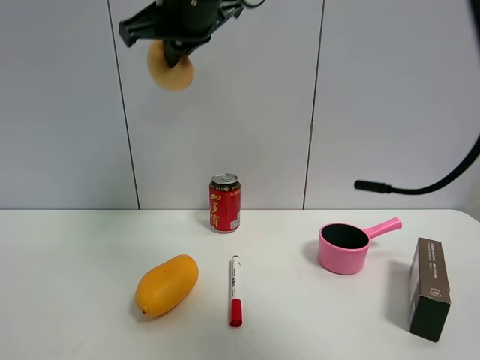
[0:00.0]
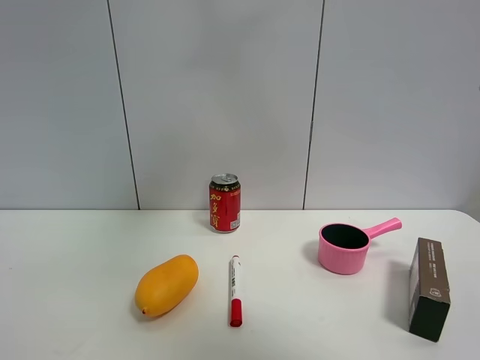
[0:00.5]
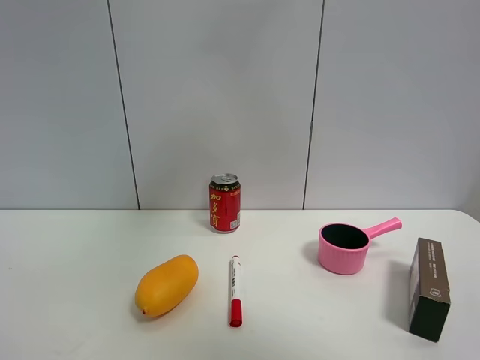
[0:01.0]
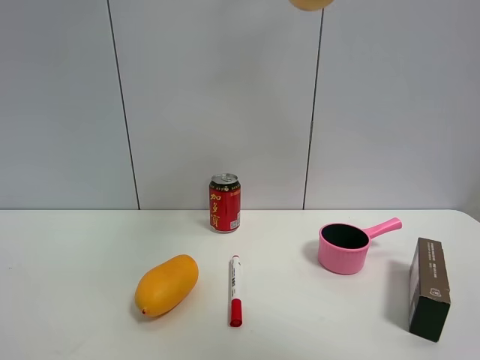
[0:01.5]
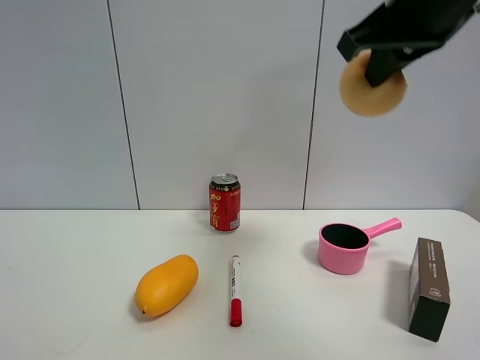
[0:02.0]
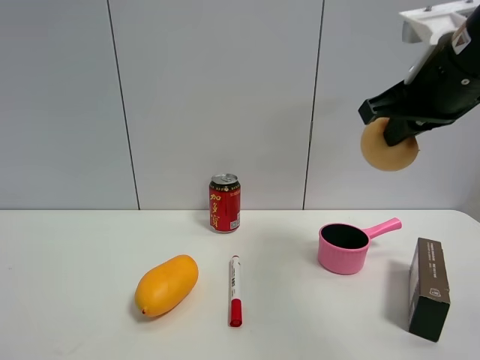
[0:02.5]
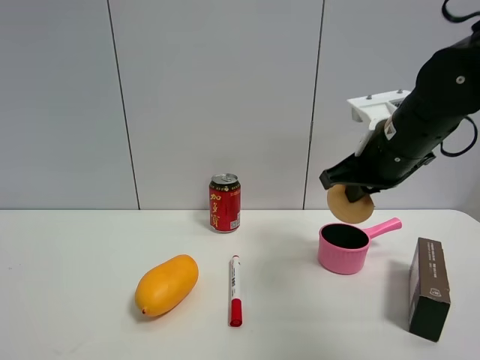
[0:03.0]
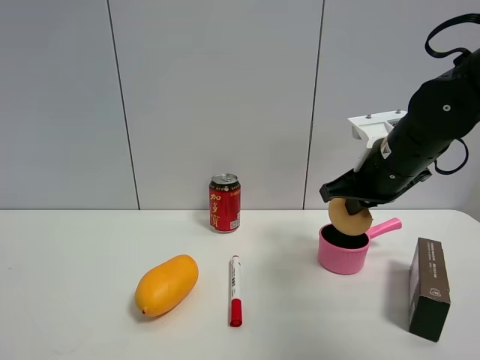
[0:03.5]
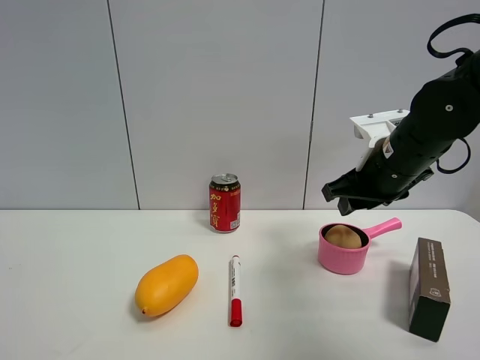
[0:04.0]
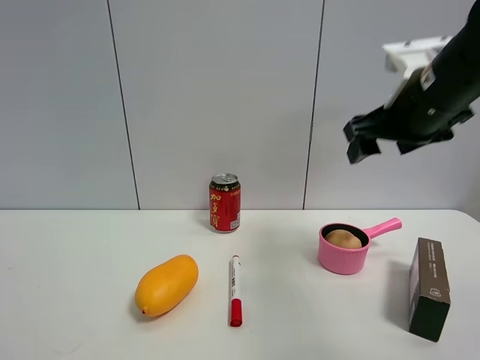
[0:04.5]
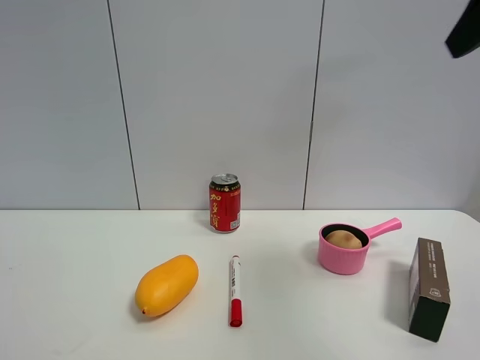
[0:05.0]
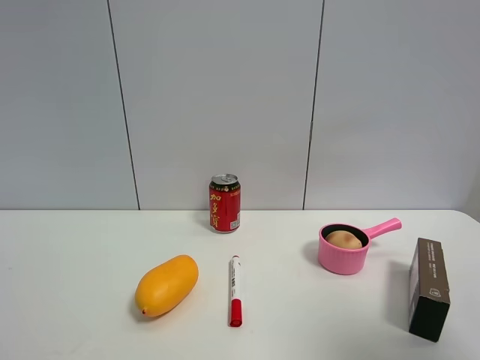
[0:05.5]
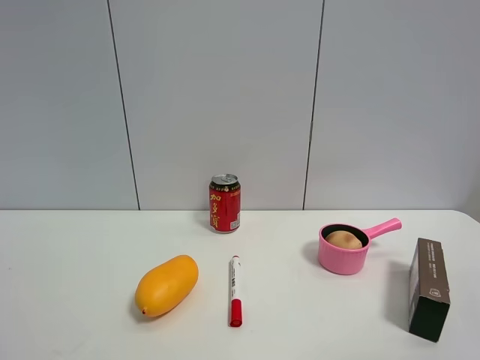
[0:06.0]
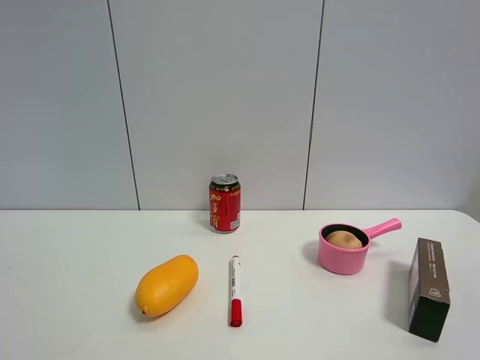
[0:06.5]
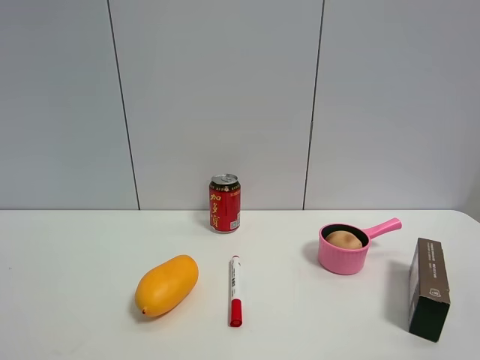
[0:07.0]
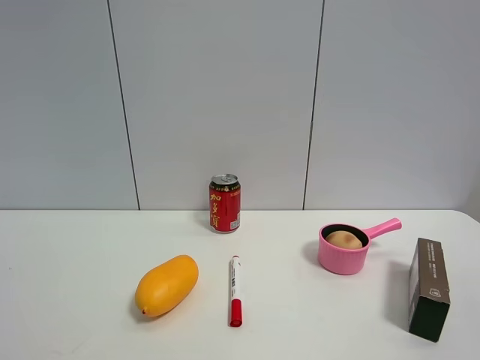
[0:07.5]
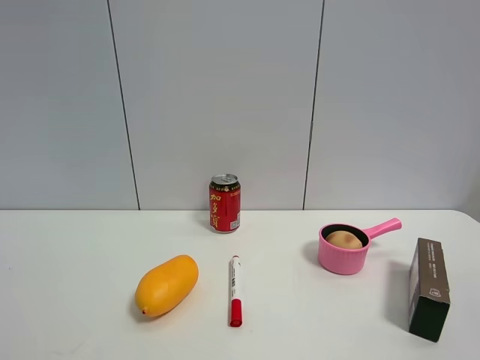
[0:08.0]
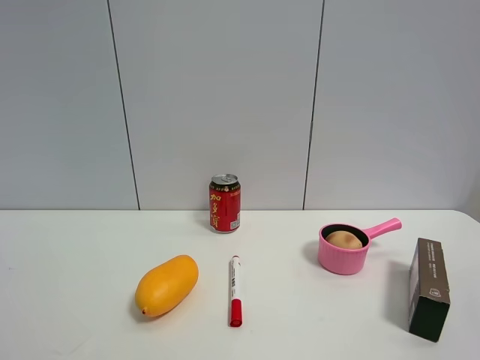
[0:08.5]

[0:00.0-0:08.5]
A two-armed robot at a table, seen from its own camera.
Task of the whole recording: the gripper move the object.
Step, 0:00.0 to 0:04.0: Place the egg tart into the pink pot with the right gripper.
0:00.0 to 0:02.0: The right gripper is displaced to the right and backward by about 25 cm.
0:02.0 to 0:04.0: The right gripper moves downward and forward, roughly 20 cm, and opens its fingers.
0:04.0 to 0:06.5: The right gripper is displaced backward by approximately 35 cm, and opens up.

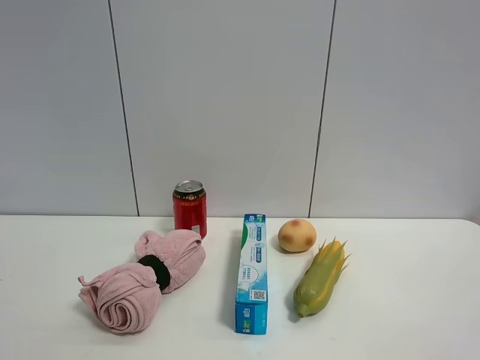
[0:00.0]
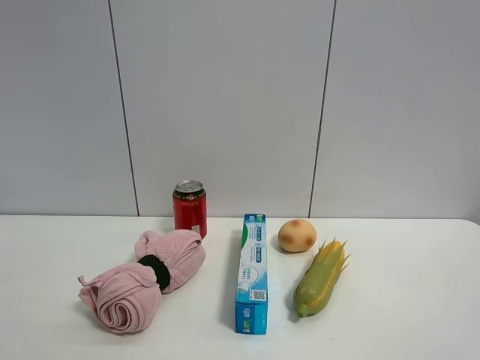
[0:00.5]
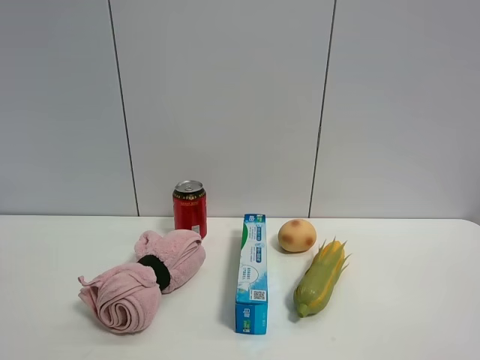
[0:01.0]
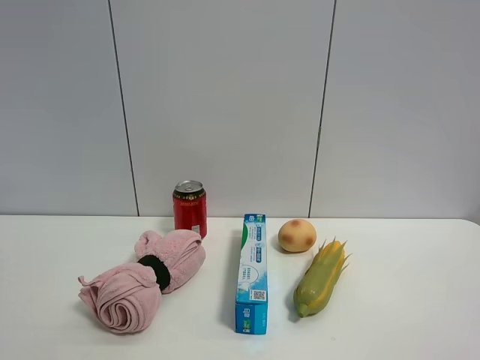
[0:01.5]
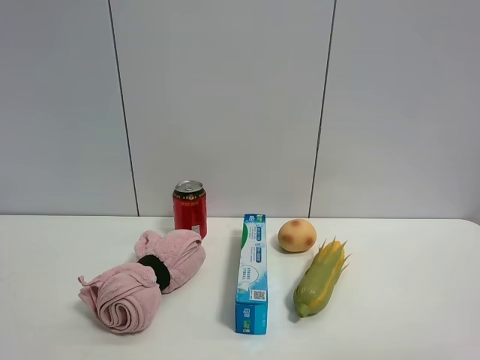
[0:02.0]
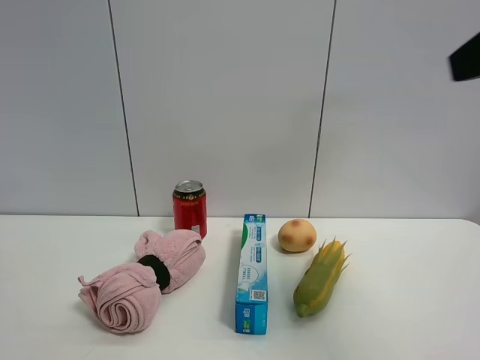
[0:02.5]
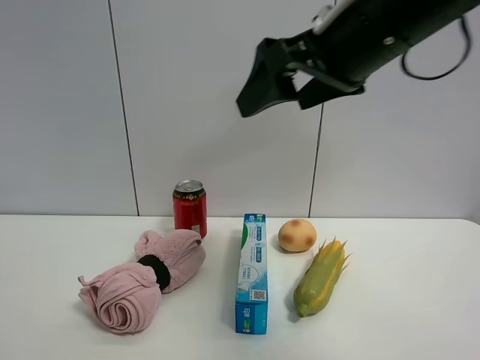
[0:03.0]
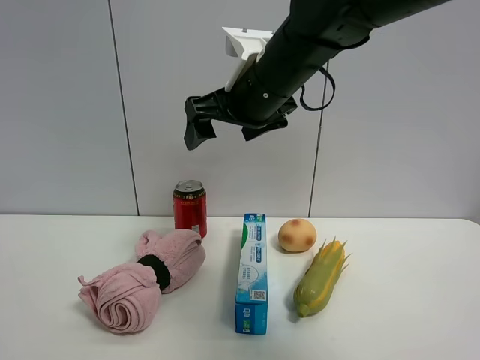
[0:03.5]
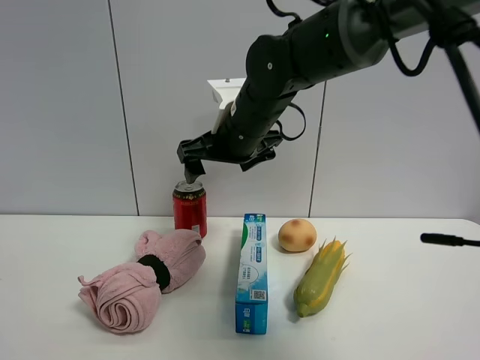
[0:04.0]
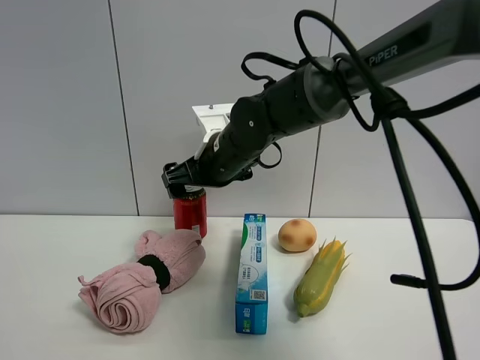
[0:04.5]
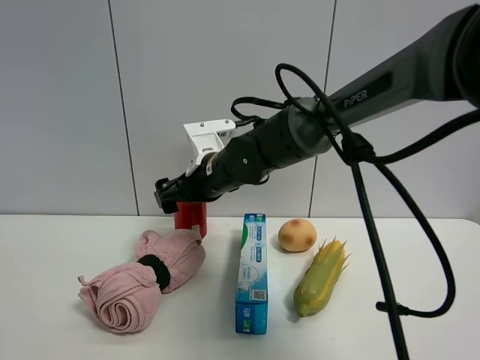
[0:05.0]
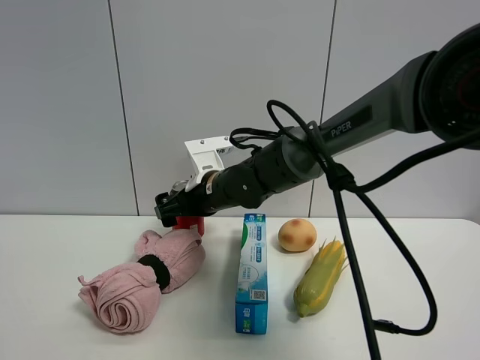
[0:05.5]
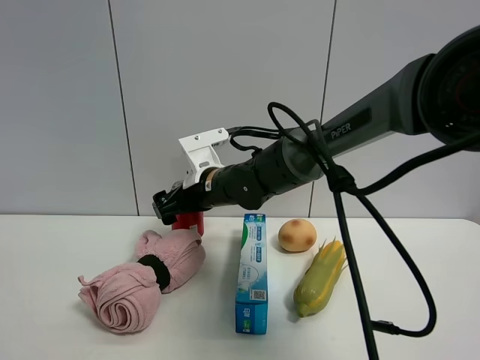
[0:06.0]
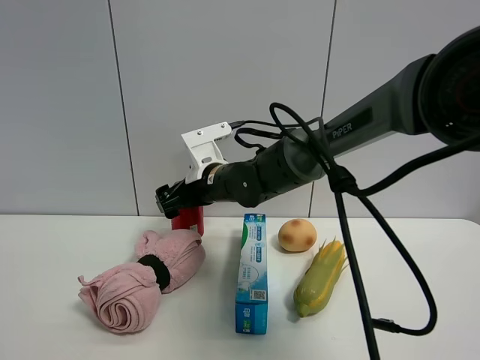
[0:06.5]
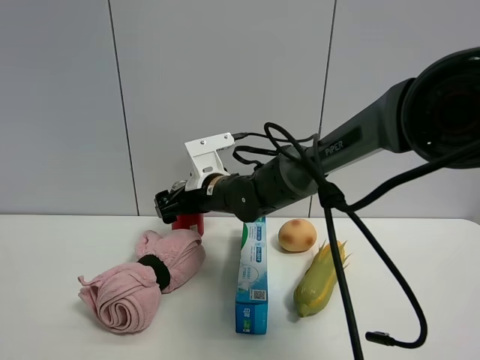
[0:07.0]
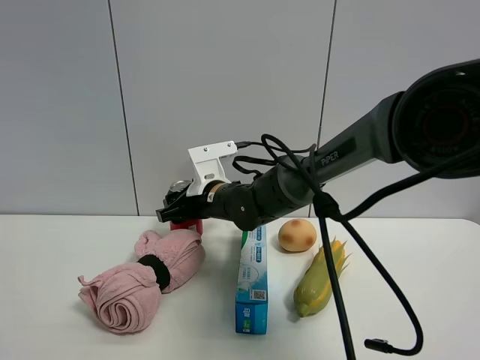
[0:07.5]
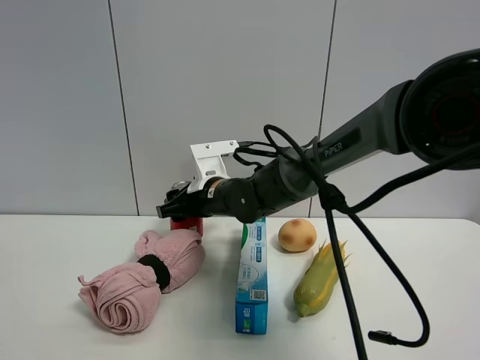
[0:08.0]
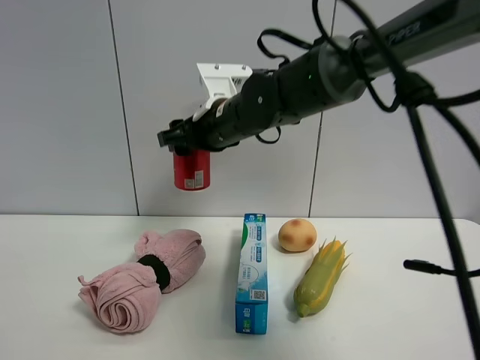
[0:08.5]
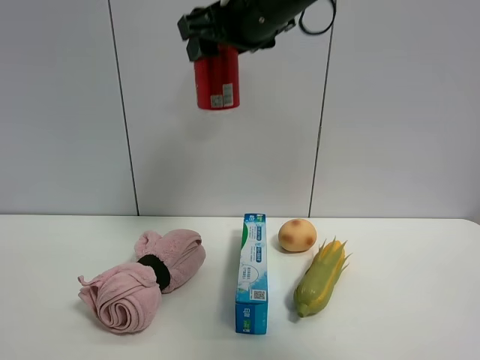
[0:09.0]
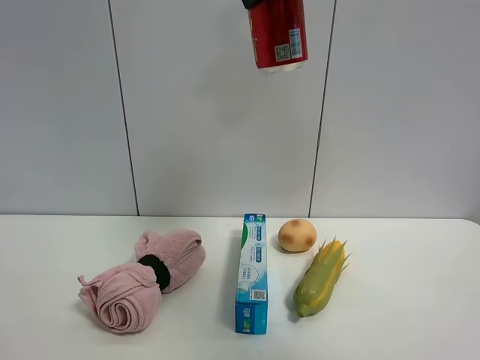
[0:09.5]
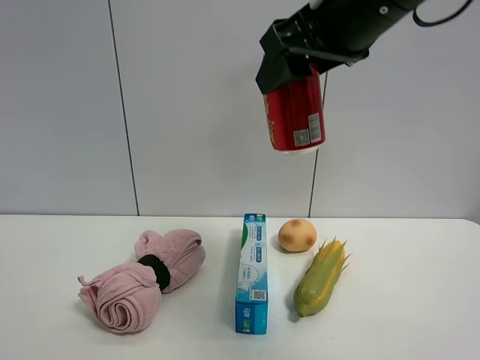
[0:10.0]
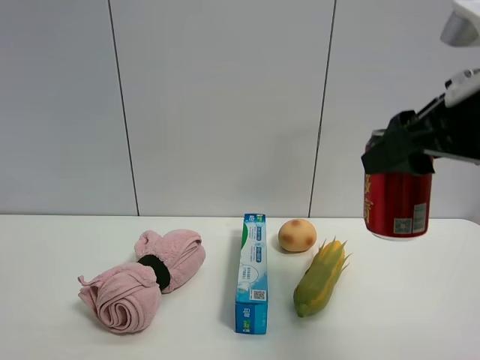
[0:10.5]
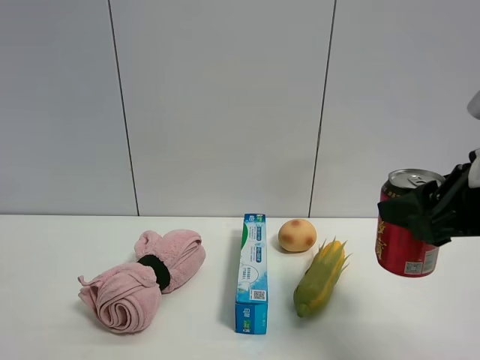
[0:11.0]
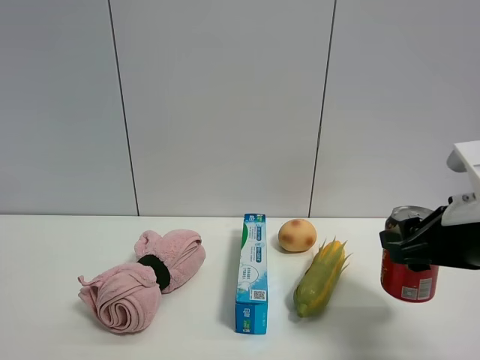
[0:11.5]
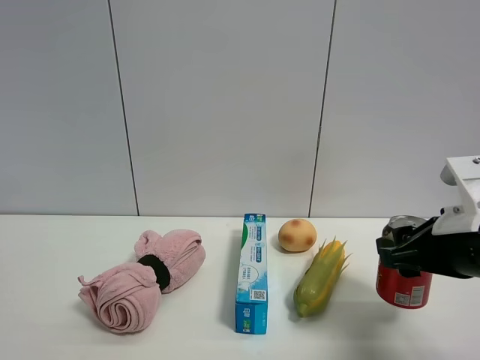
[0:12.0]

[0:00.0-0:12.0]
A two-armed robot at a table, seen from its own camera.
Task of the whole recording: the gripper move the object.
Step, 0:00.0 to 0:07.5: Grasp the Jia Duo Bao with the right gripper.
0:02.0 to 0:04.0: The right gripper goes some 50 cm forward and to the left.
0:04.0 to 0:06.0: The right gripper heads downward, covering about 10 cm.
0:06.0 to 0:08.0: The right gripper closes up.
0:08.0 to 0:10.0: The right gripper shifts roughly 35 cm upward, backward and to the right.
0:10.0 to 0:12.0: The right gripper shifts approximately 25 cm downward and to the right.

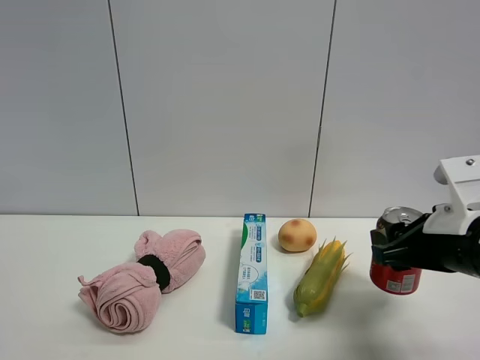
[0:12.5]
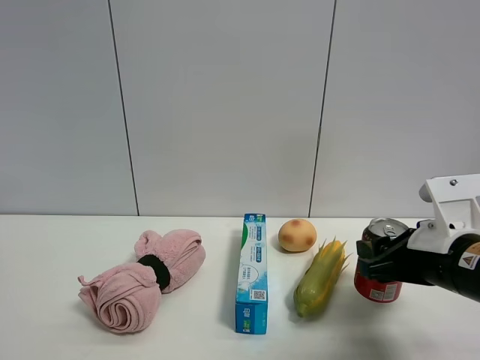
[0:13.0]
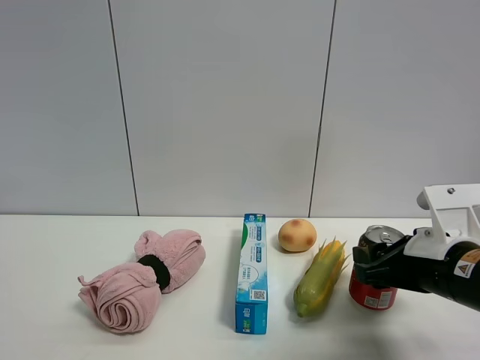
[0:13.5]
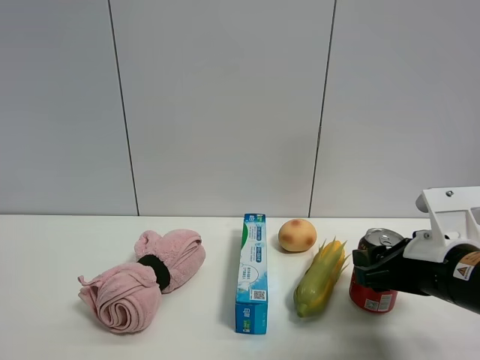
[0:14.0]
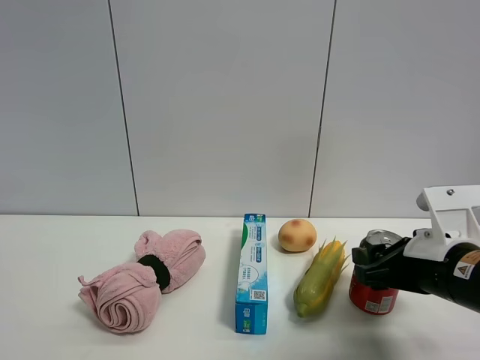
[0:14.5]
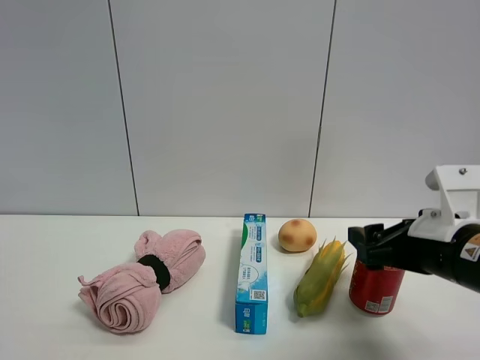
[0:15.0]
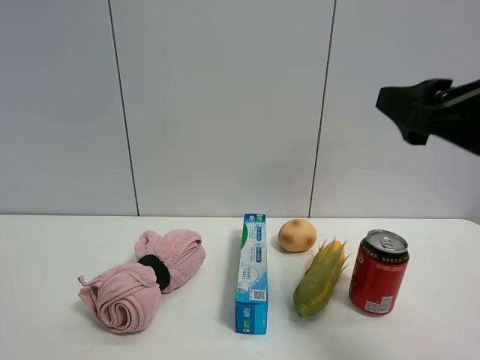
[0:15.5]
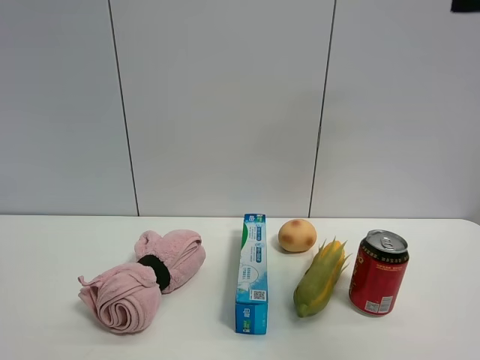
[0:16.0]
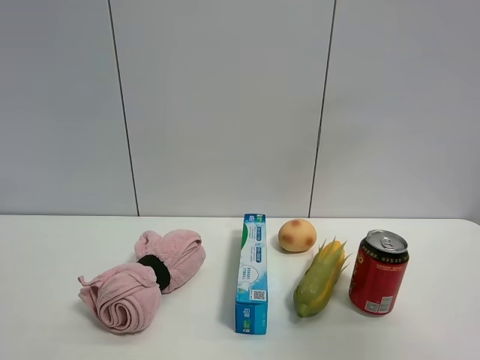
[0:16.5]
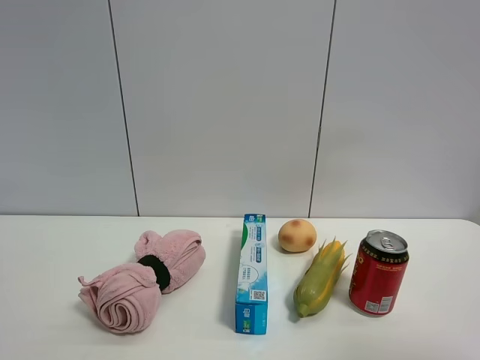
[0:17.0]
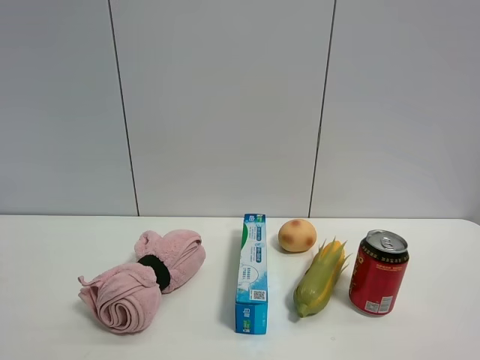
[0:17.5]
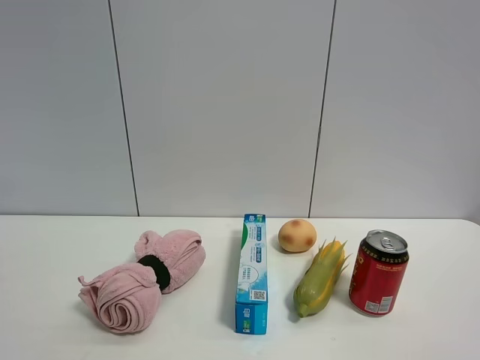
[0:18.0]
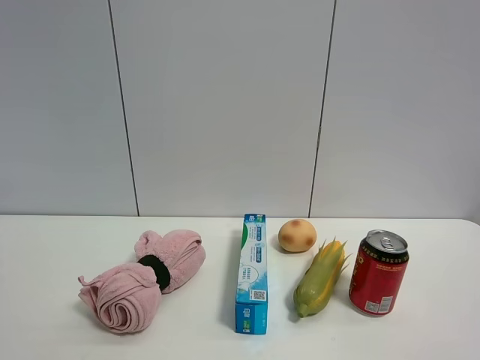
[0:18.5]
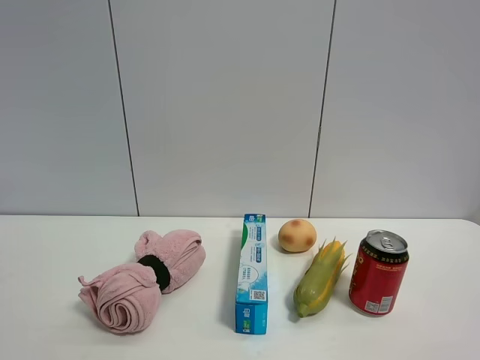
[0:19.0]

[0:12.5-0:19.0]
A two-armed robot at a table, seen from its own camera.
Task of the whole recording: the gripper move the object.
Step, 0:12.5 to 0:15.0: Place the Jia Duo Bao on the table with the right gripper.
0:12.5 to 0:14.5: There are only small adjustments of the grippers.
0:14.5 to 0:17.0: The right gripper travels upward and backward by approximately 35 cm, and opens up.
